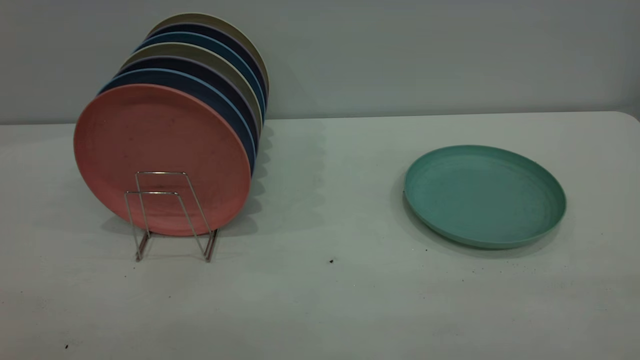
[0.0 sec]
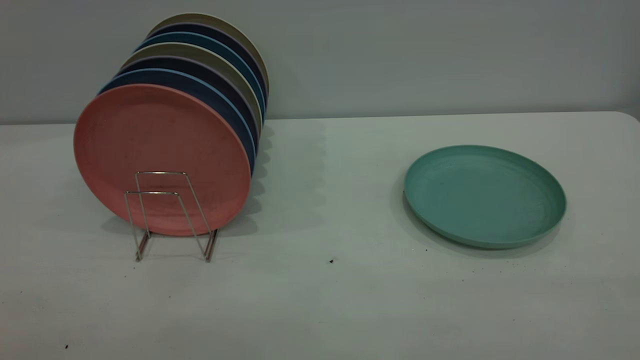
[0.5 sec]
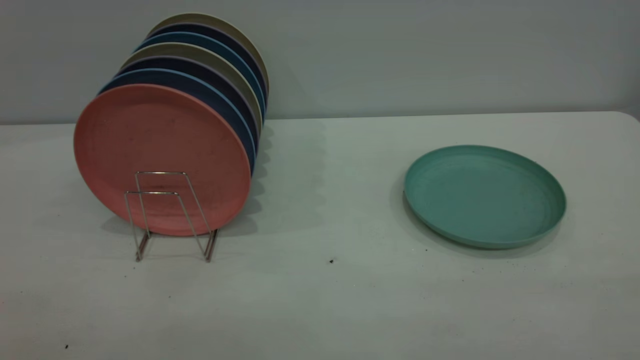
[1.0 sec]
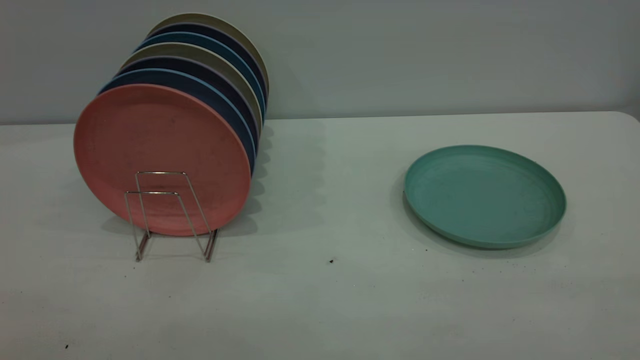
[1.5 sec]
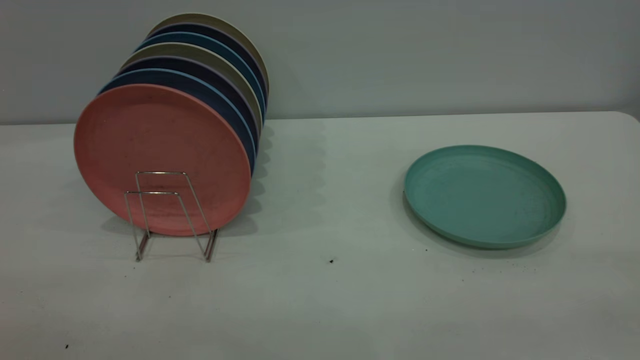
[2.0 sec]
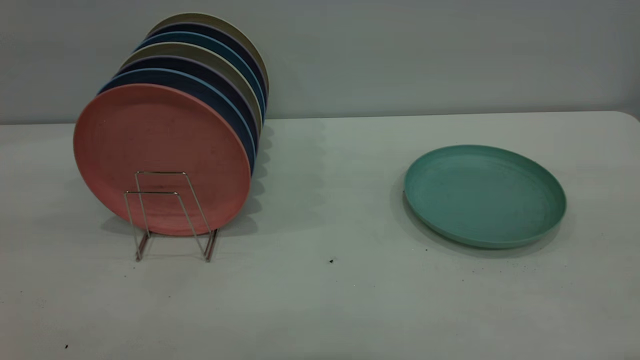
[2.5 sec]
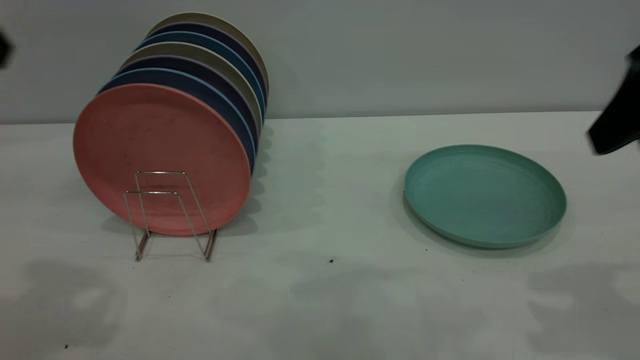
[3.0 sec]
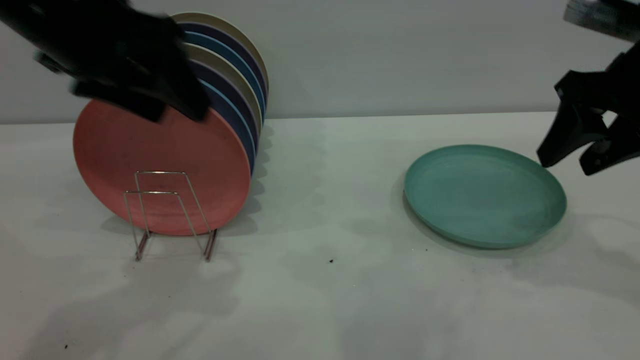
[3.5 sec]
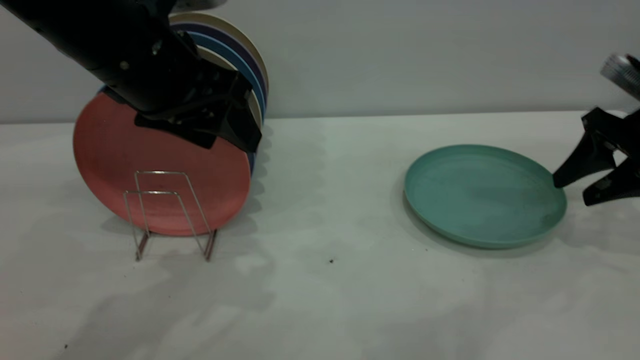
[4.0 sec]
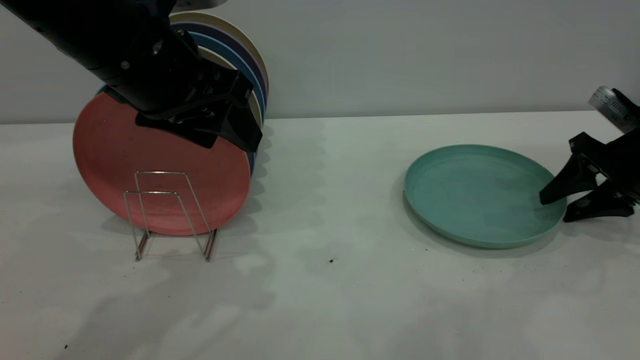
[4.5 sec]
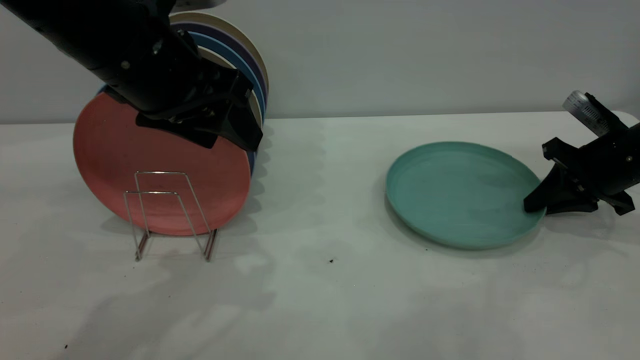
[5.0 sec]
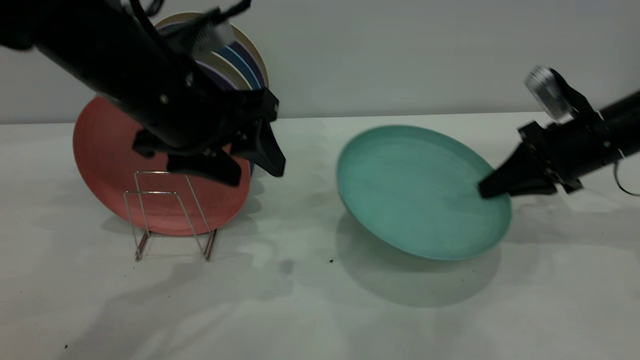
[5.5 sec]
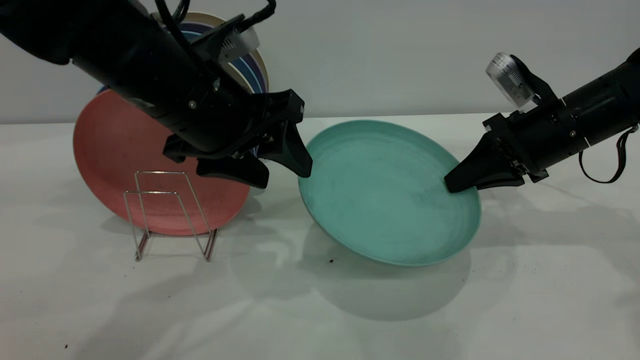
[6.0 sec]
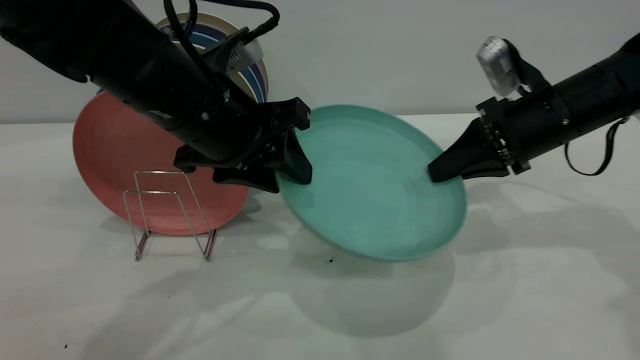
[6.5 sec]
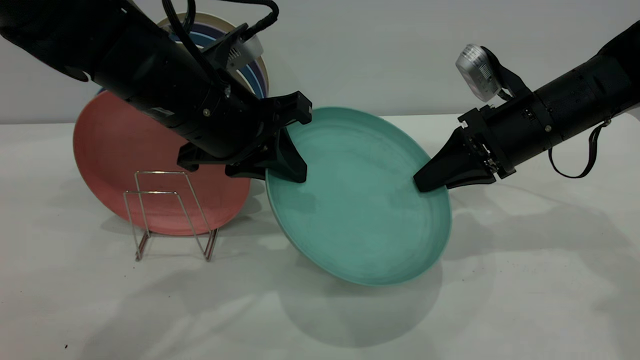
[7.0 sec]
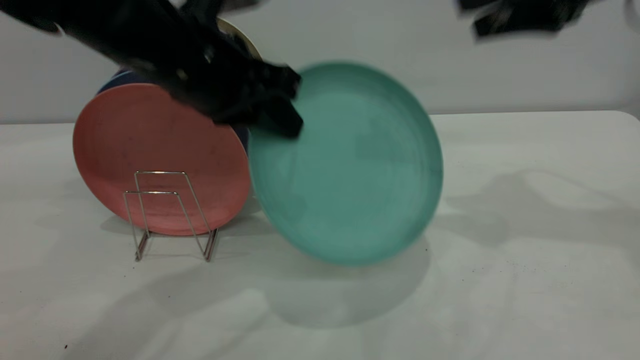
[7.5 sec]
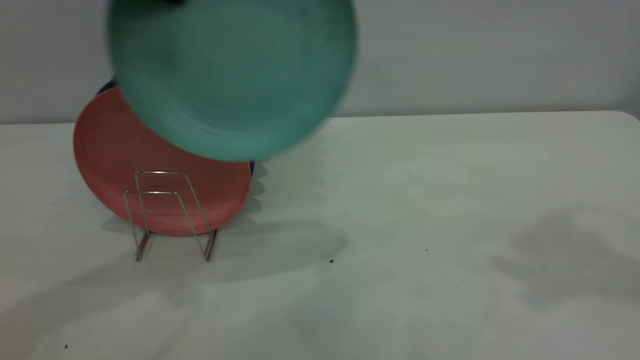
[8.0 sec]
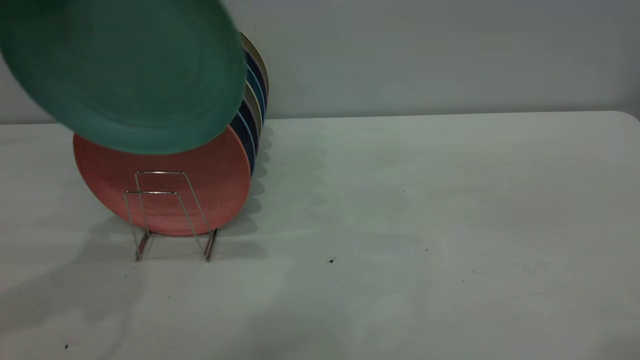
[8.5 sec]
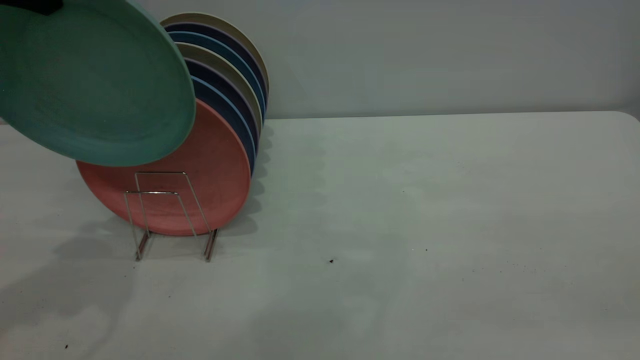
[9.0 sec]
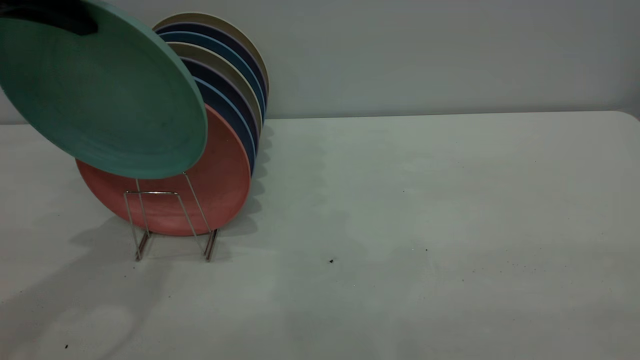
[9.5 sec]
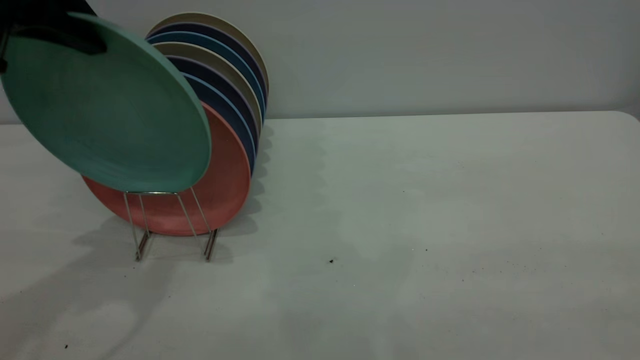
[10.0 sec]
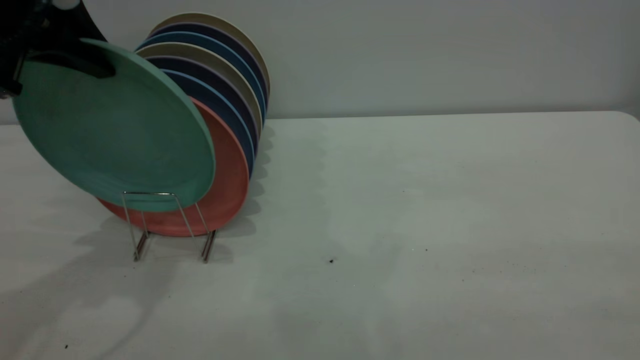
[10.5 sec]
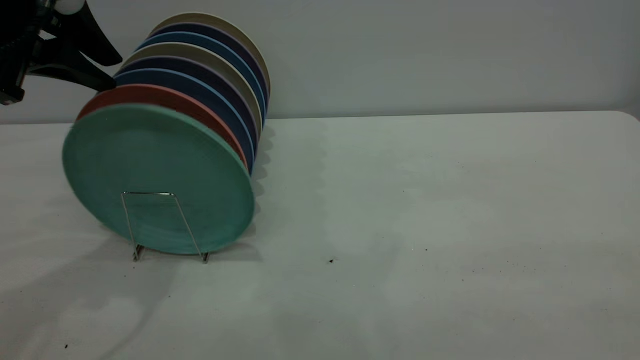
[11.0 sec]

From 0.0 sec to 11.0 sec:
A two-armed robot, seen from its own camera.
Task of the whole recording: the right gripper grasp the green plate, the right gripper pass the green plate to the left gripper, and the left gripper place the green plate on the plate rack.
Step, from 0.0 sec to 5.0 sec: Pick up the plate with the right gripper.
Step, from 5.5 sec to 7.0 sec: Pass the plate from the right gripper to the left gripper.
From 2.0 sec to 3.5 sec: The left gripper moves forward, about 30 cm. Meanwhile the right gripper shifts some 35 cm forward and downward.
From 3.5 sec to 5.5 sec: The right gripper is displaced downward and forward by approximately 15 cm, and closes. Meanwhile the left gripper heads downward, covering roughly 5 cm.
From 5.5 sec to 7.5 sec: The right gripper goes about 20 cm upward, and opens; the left gripper closes.
From 7.5 sec to 9.0 sec: The left gripper heads to the left and upward, covering roughly 20 cm. Meanwhile the right gripper travels backward by about 35 cm.
From 9.0 sec to 11.0 sec: The left gripper is displaced downward by some 5 cm, and opens its fingers.

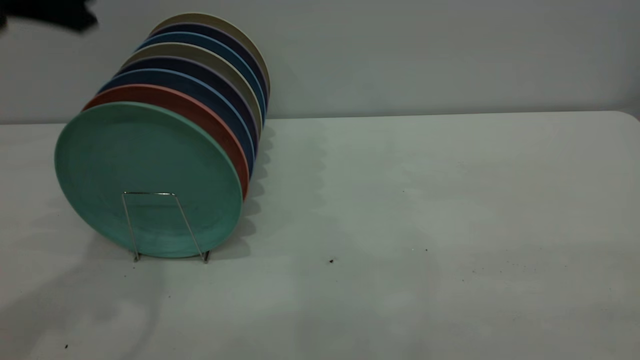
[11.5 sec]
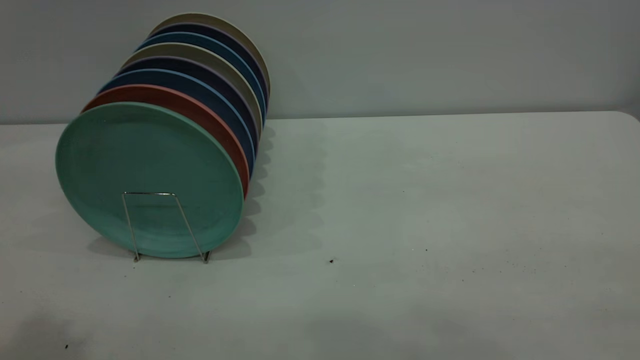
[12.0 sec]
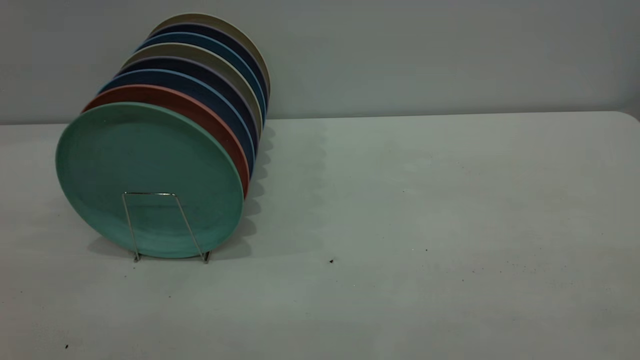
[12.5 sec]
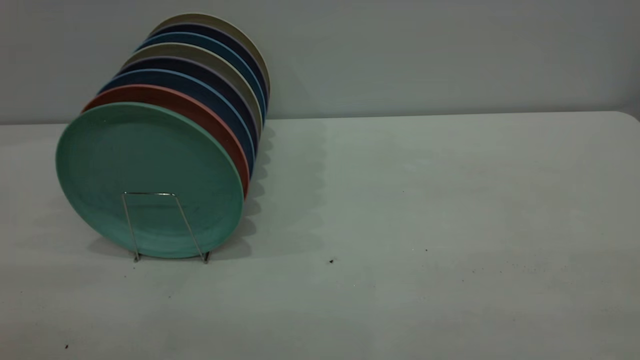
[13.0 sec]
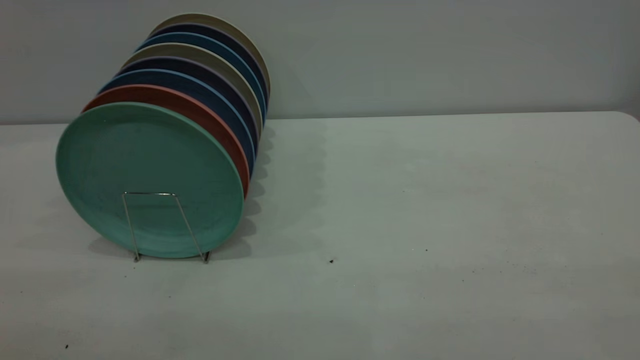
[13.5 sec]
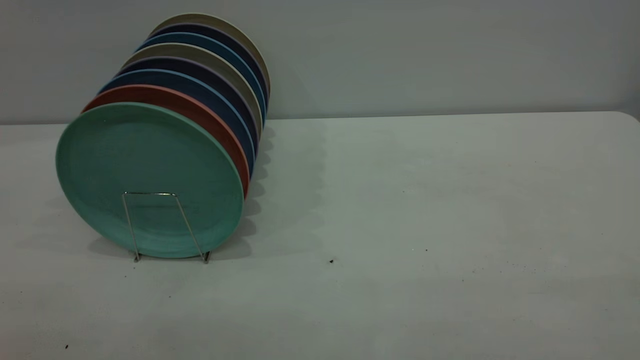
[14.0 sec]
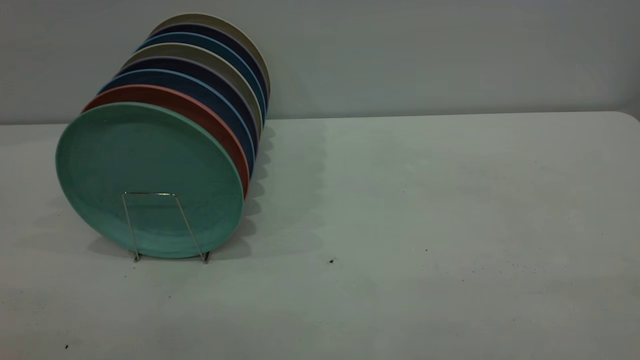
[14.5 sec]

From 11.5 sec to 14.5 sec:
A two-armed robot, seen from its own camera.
Task of the whole recording: the right gripper grasp the green plate, the right gripper pass the green plate to the left gripper, and the left gripper place the green plate on the plate rack.
From 11.5 sec to 13.0 sec: The left gripper shifts some 30 cm backward.

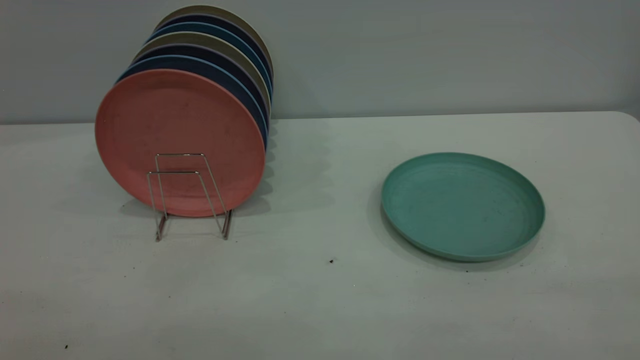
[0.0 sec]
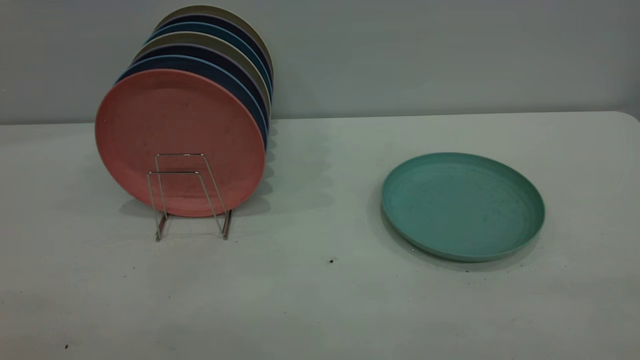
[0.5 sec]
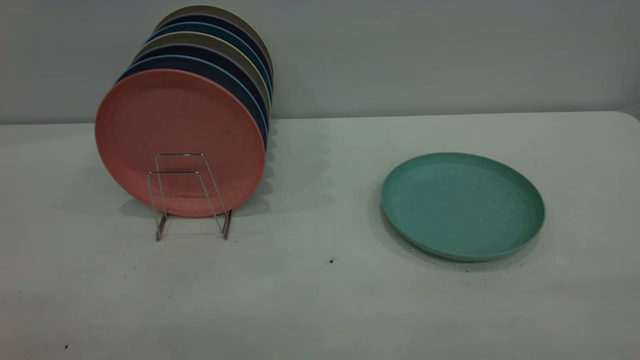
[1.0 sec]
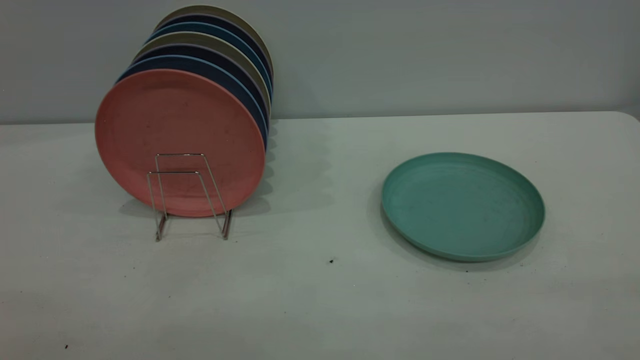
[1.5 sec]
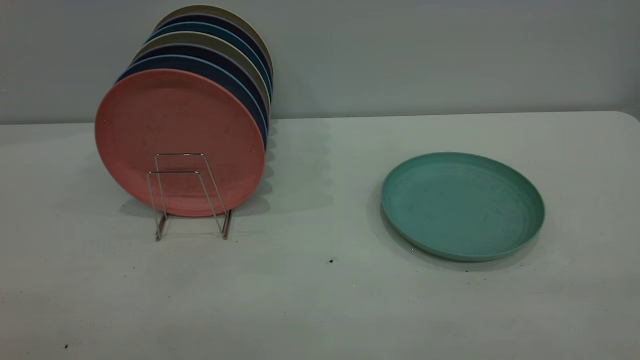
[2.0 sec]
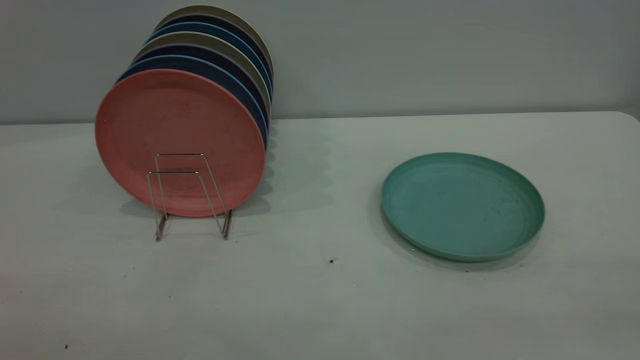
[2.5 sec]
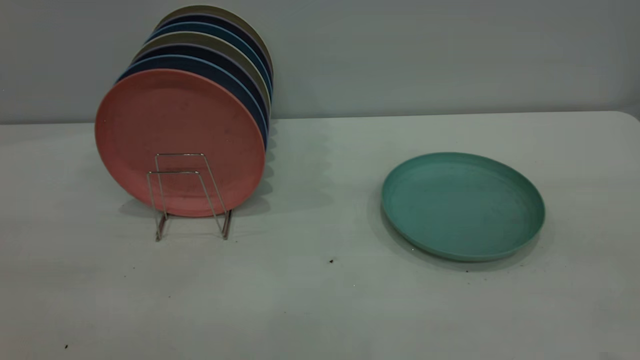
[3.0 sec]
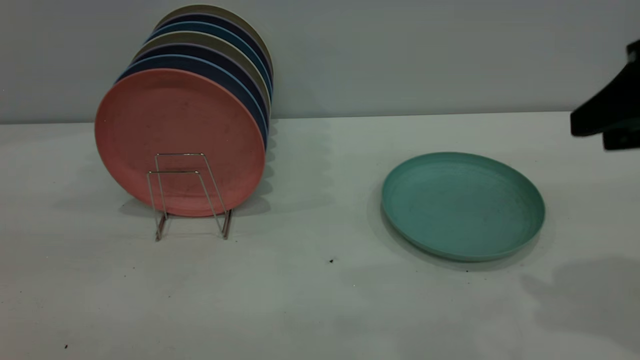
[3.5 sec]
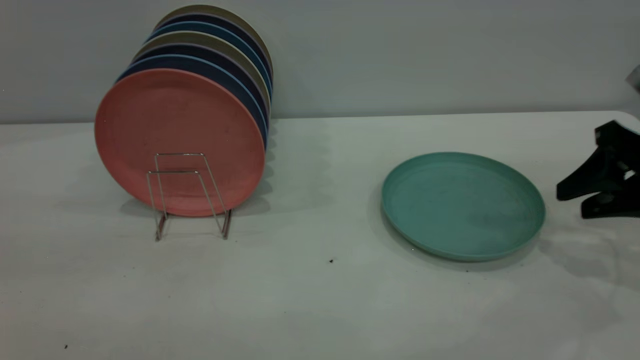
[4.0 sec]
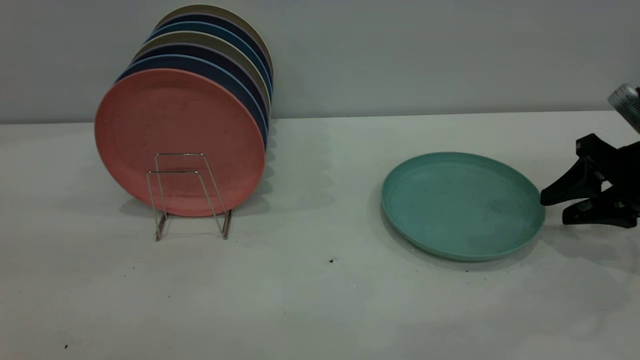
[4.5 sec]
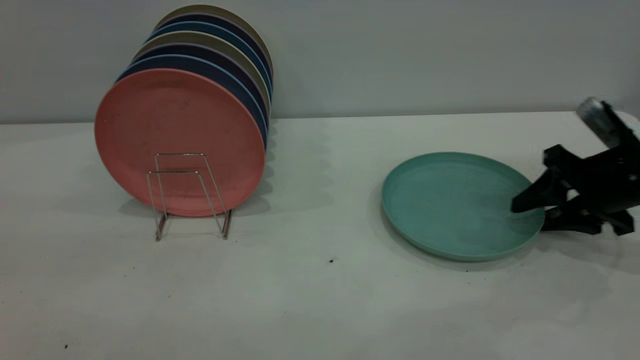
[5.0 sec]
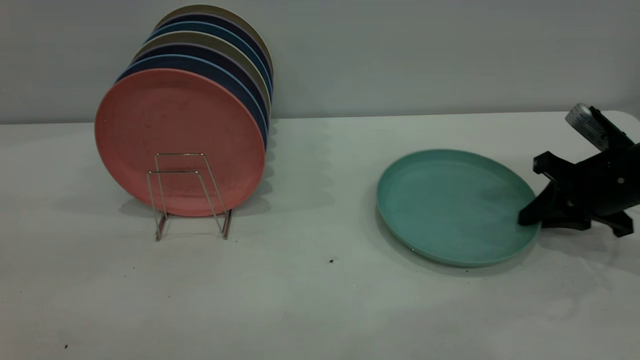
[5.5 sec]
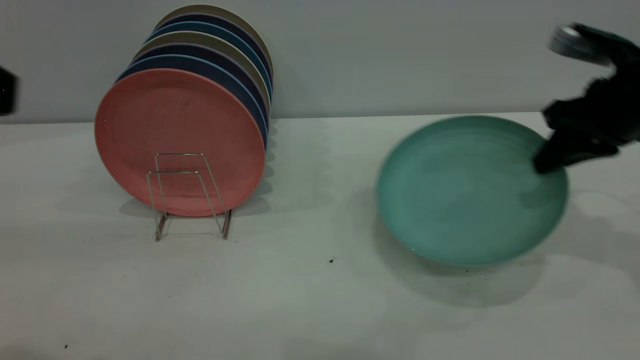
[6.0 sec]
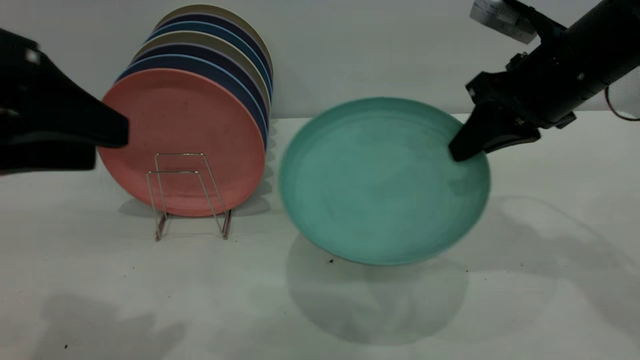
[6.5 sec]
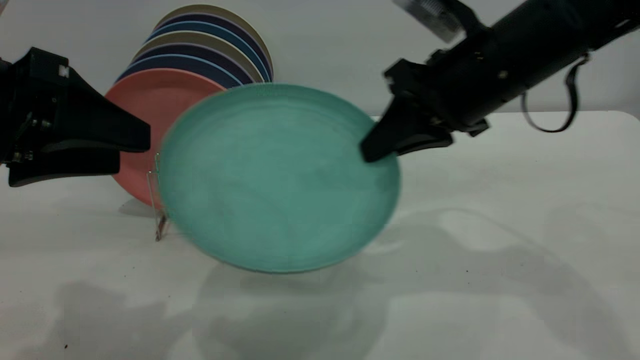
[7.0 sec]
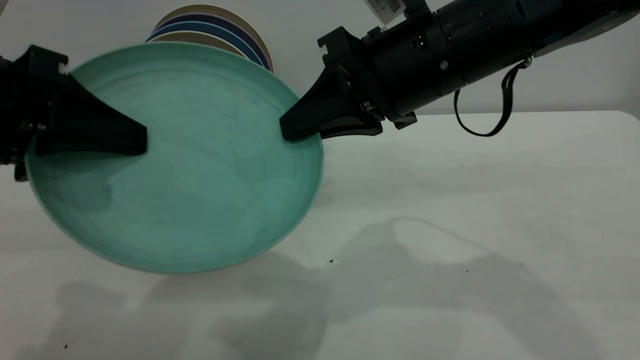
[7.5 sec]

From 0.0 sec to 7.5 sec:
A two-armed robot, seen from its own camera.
Task of the whole recording: the right gripper grasp the green plate, the right gripper pass the green plate to the left gripper, and the left gripper place the green plate on the plate rack.
Step, from 0.0 sec to 5.5 sec: Pick up the plate with the right gripper.
From 0.0 sec to 2.0 sec: Both grippers stay put.
From 2.0 sec to 4.0 sec: The right gripper is displaced forward and downward by about 40 cm.
From 4.0 sec to 5.5 sec: The right gripper moves downward, approximately 5 cm, and closes its fingers.
From 5.5 sec to 7.5 sec: The right gripper travels to the left and upward by about 30 cm. Meanwhile the left gripper shifts approximately 15 cm forward and downward, and closes its fingers.
